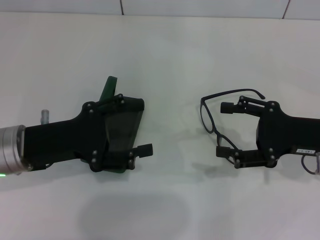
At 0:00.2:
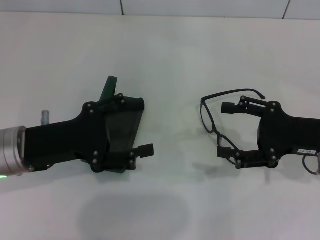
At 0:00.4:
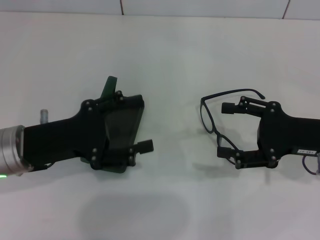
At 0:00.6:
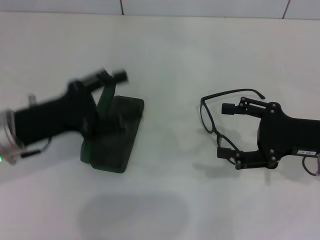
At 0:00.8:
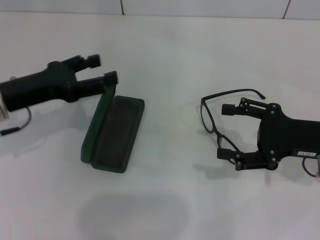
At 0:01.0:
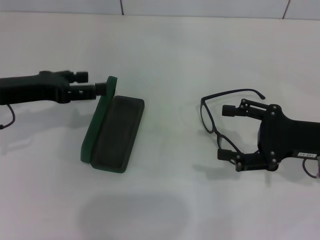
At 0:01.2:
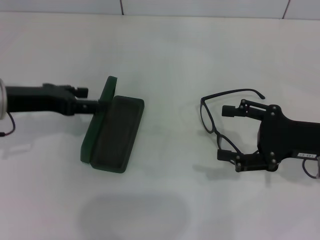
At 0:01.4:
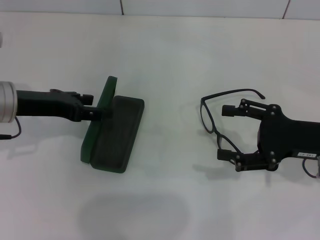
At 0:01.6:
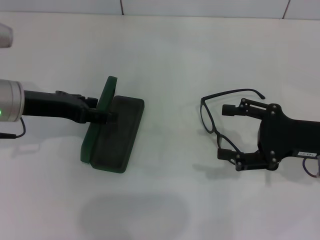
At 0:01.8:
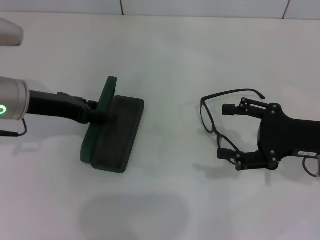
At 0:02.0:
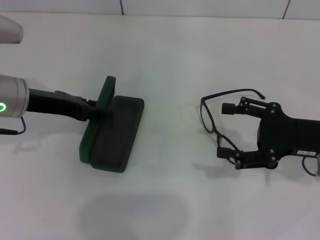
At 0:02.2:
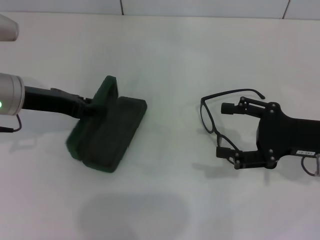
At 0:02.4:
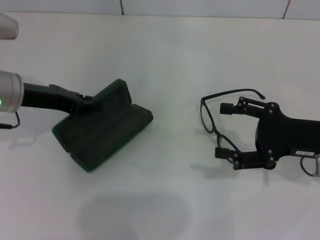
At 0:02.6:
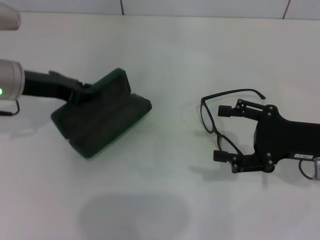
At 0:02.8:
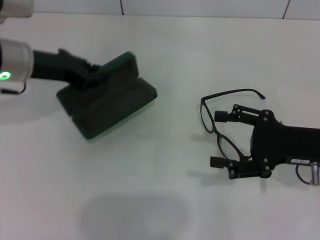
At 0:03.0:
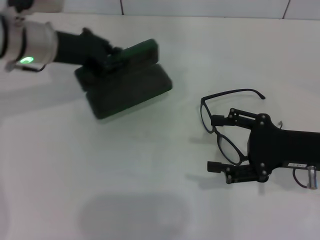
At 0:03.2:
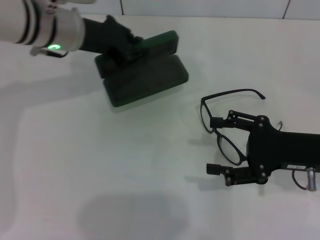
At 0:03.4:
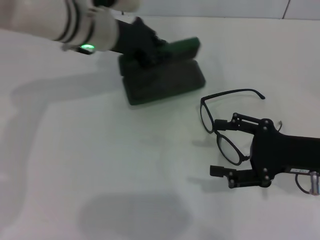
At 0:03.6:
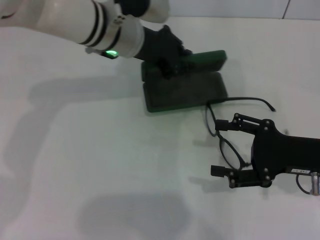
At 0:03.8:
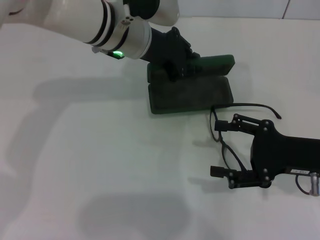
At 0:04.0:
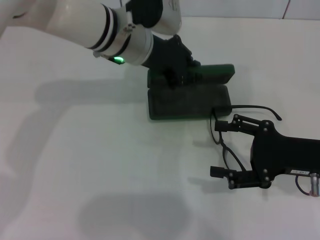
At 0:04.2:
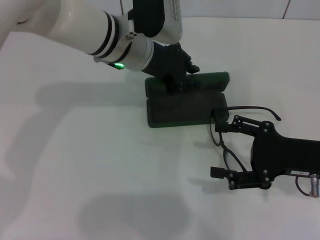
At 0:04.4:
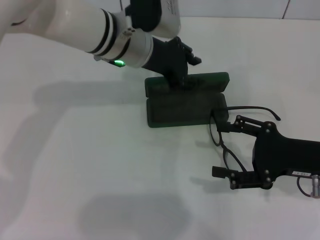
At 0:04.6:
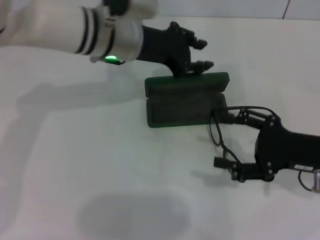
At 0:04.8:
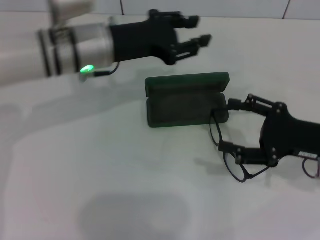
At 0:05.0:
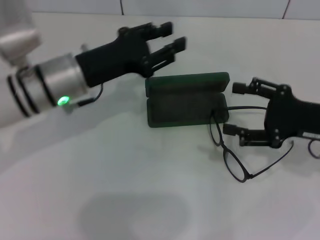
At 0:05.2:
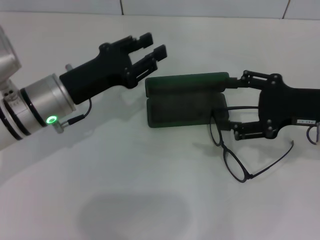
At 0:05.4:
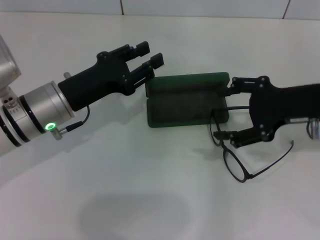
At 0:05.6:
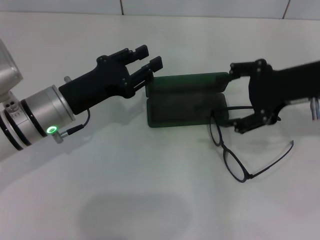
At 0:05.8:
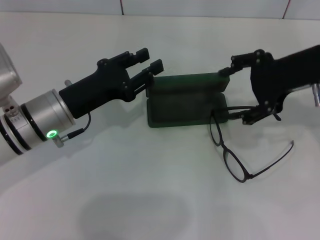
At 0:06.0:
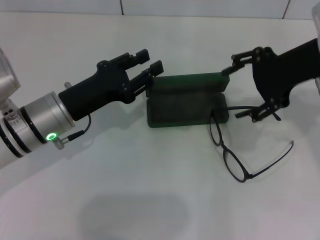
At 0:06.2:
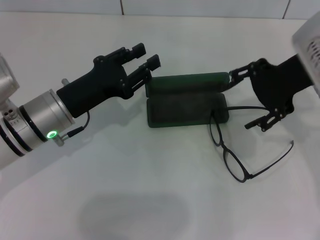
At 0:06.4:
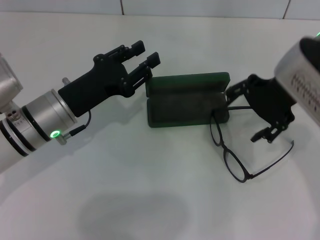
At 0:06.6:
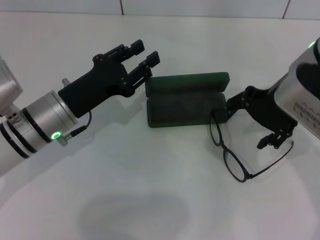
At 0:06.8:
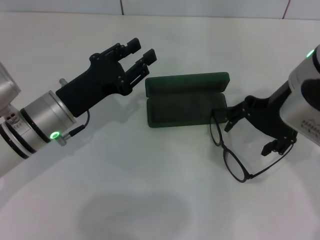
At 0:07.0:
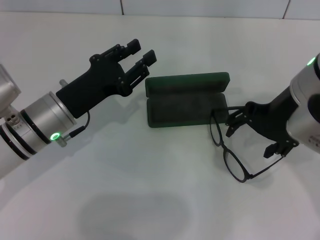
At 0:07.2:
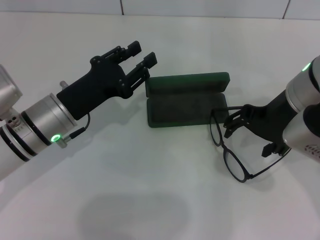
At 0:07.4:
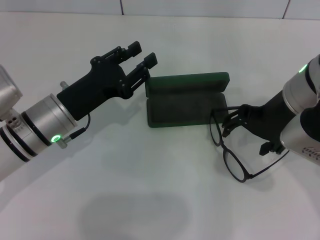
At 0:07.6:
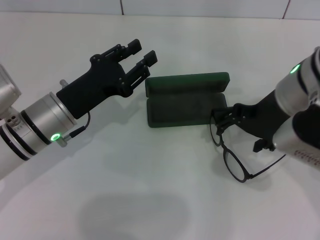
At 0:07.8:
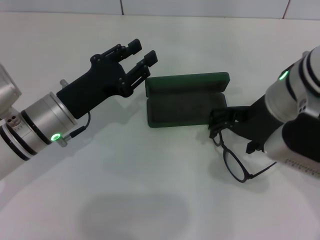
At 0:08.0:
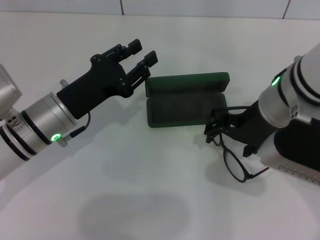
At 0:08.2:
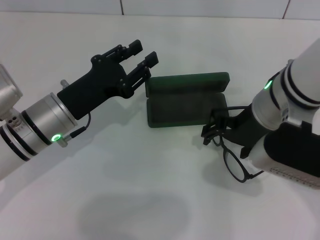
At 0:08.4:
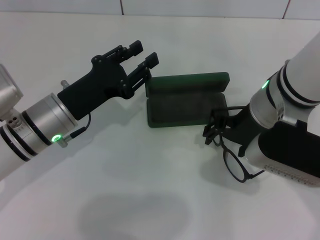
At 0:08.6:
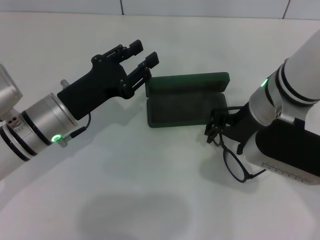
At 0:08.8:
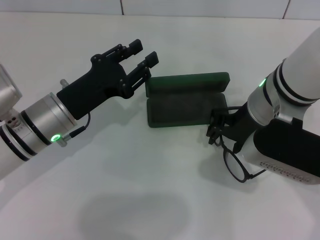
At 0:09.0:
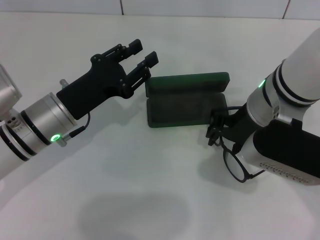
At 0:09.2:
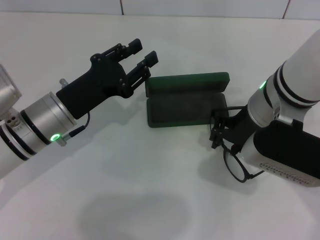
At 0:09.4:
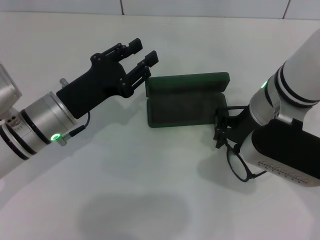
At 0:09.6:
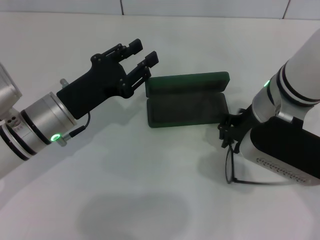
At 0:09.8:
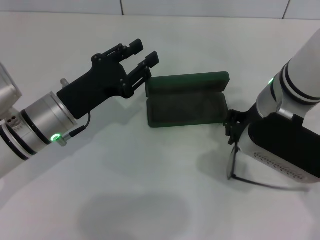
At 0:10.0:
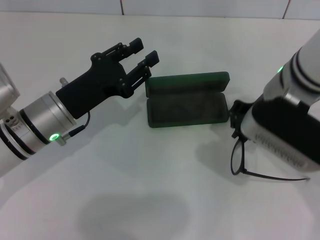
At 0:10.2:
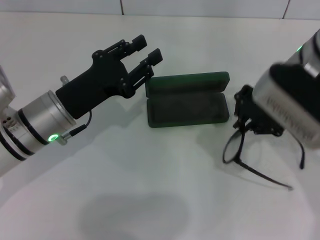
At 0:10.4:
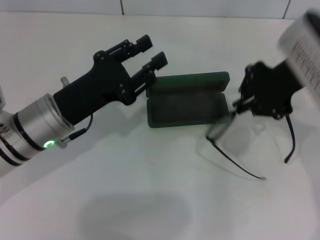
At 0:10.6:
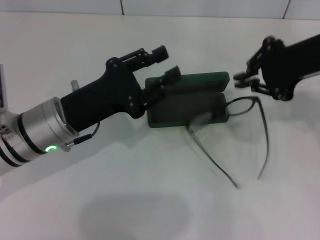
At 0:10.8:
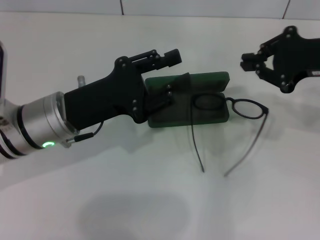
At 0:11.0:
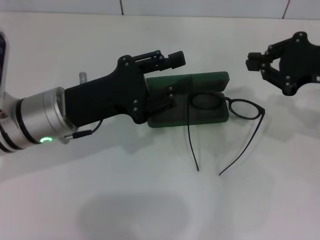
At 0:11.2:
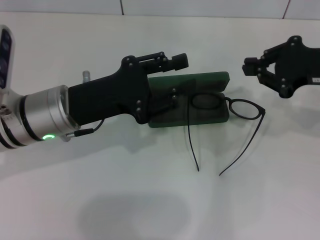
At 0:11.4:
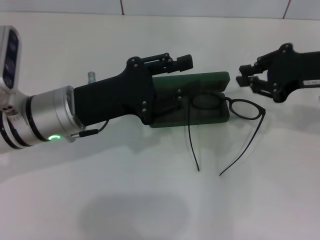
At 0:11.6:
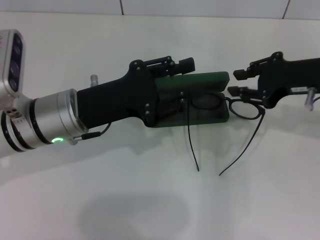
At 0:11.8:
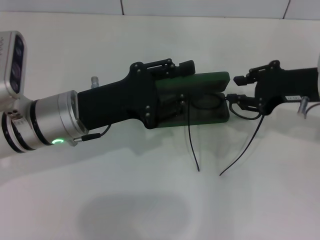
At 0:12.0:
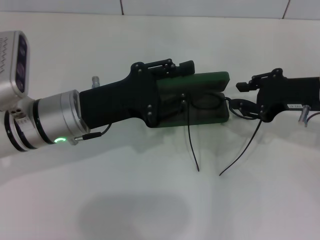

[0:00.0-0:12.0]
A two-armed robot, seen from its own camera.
Step, 0:00.0 to 0:02.2: Grab the glasses case with your left hand.
Step, 0:02.4 to 0:04.2: Place the glasses case in the center of the table with your left hand.
0:00.0 to 0:01.6: The left gripper goes approximately 5 cm forward.
0:01.6 to 0:03.0: The left gripper goes some 5 cm forward, and closes its fingers.
0:03.0 to 0:04.4: The left gripper goes about 10 cm to the right.
0:04.4 to 0:06.0: The right gripper moves upward and forward, about 15 cm; the left gripper moves to the left, backward and downward, roughly 20 cm.
0:06.0 to 0:07.6: The right gripper moves to the left, approximately 5 cm.
0:07.6 to 0:09.0: The right gripper closes its fingers.
0:09.0 to 0:10.4: The right gripper heads to the right and upward, covering about 10 cm, and closes up.
0:10.4 to 0:12.0: The right gripper travels downward and to the right by approximately 10 cm, and opens up.

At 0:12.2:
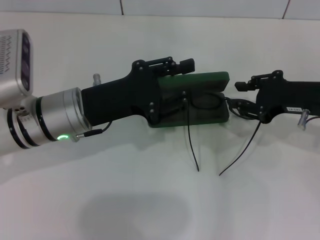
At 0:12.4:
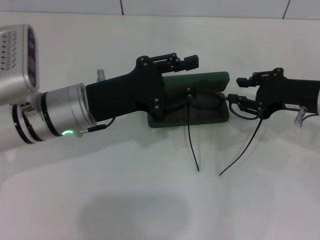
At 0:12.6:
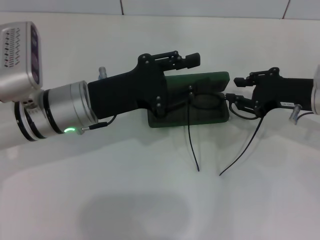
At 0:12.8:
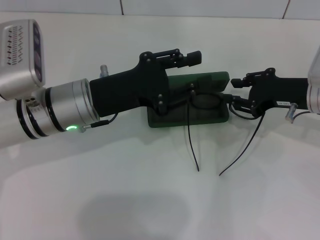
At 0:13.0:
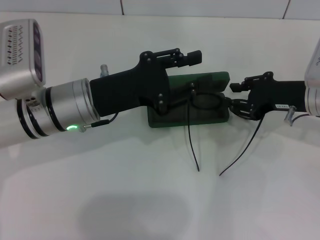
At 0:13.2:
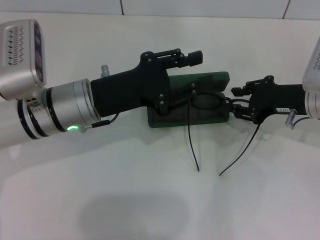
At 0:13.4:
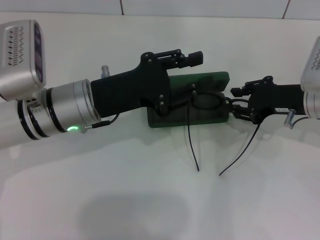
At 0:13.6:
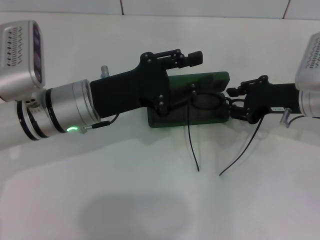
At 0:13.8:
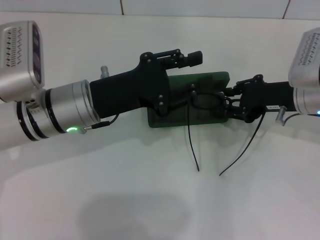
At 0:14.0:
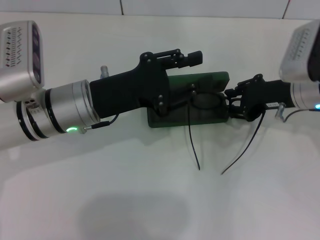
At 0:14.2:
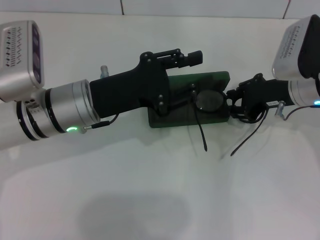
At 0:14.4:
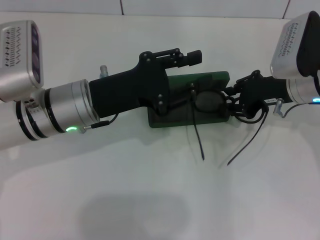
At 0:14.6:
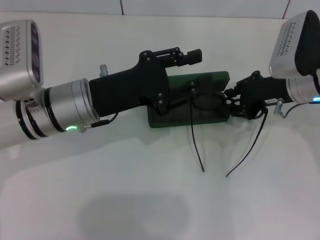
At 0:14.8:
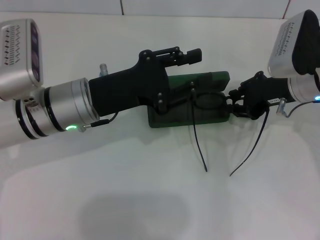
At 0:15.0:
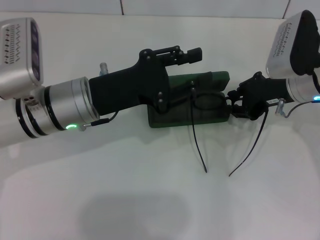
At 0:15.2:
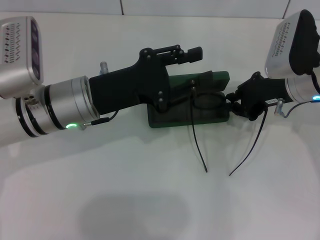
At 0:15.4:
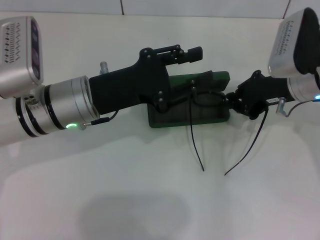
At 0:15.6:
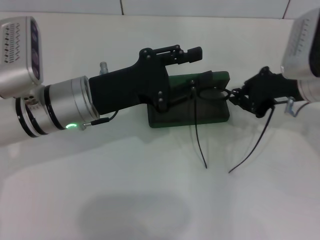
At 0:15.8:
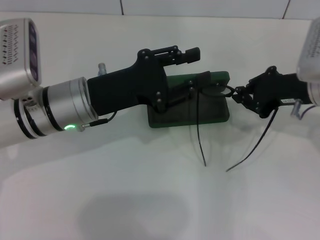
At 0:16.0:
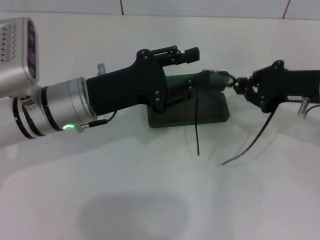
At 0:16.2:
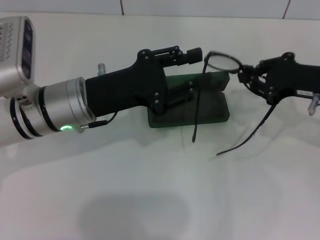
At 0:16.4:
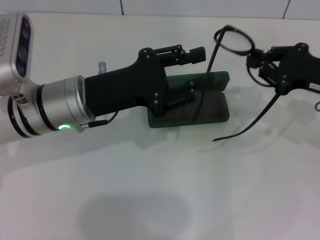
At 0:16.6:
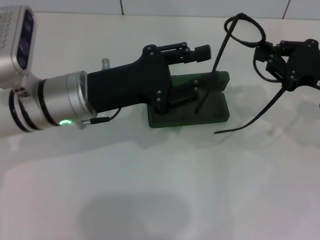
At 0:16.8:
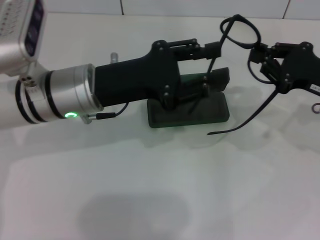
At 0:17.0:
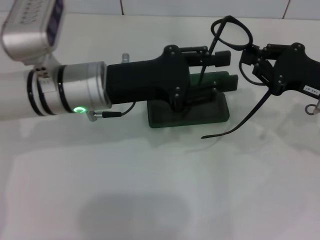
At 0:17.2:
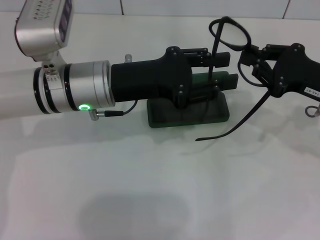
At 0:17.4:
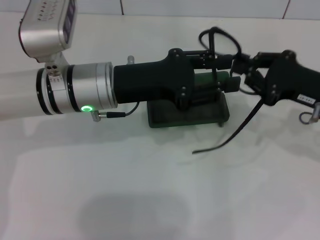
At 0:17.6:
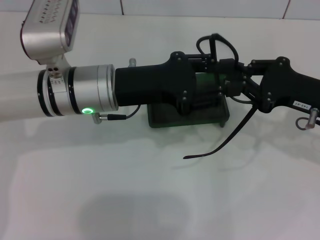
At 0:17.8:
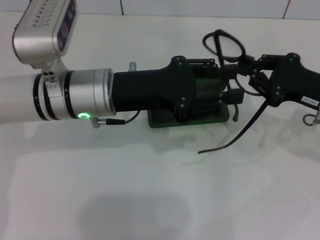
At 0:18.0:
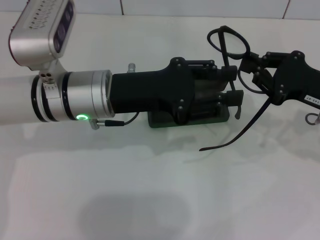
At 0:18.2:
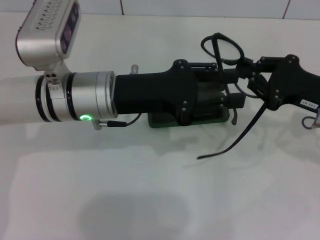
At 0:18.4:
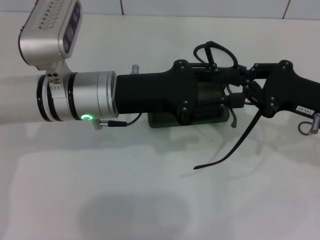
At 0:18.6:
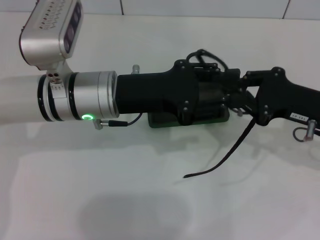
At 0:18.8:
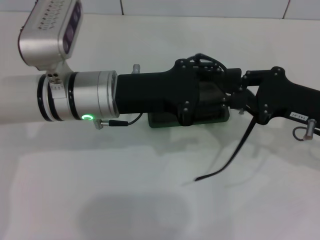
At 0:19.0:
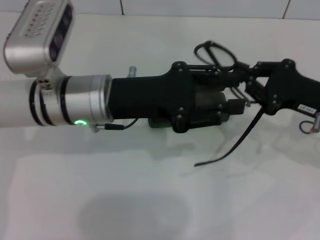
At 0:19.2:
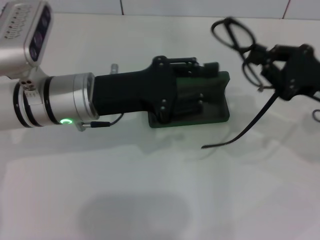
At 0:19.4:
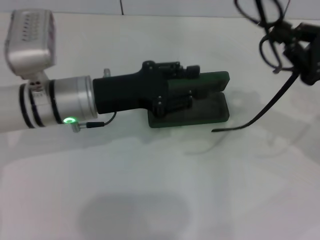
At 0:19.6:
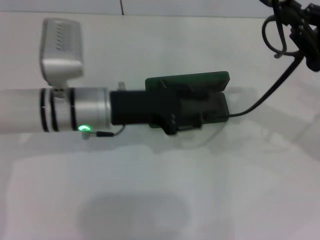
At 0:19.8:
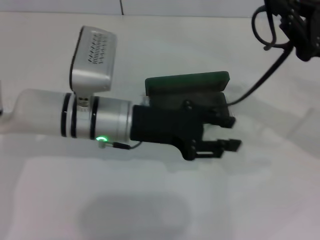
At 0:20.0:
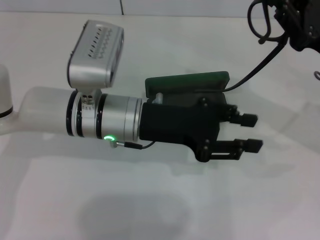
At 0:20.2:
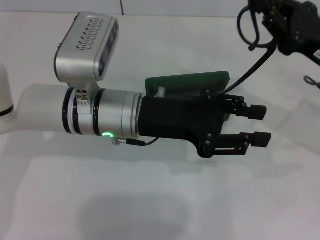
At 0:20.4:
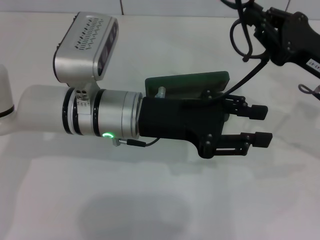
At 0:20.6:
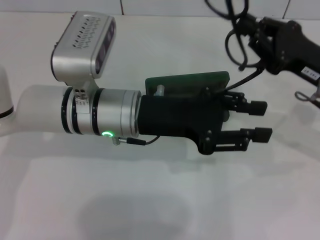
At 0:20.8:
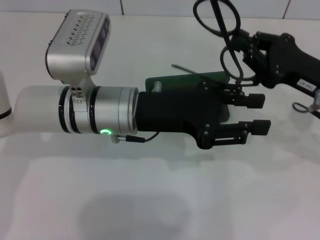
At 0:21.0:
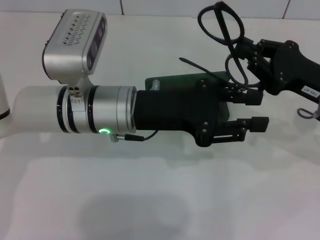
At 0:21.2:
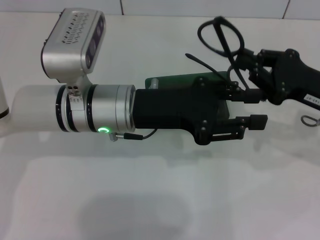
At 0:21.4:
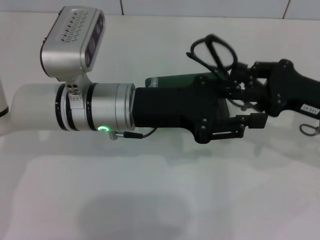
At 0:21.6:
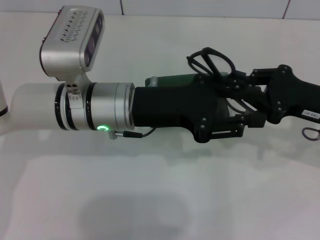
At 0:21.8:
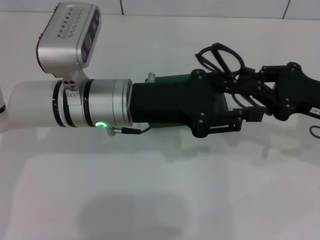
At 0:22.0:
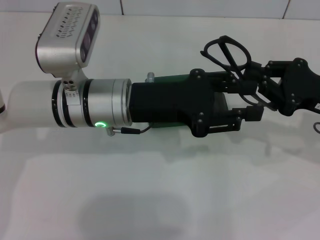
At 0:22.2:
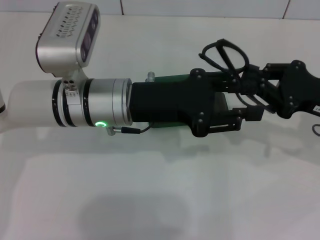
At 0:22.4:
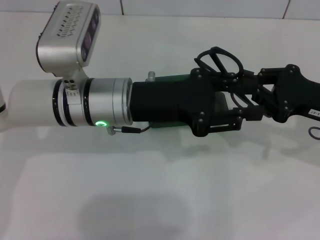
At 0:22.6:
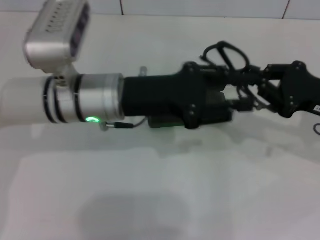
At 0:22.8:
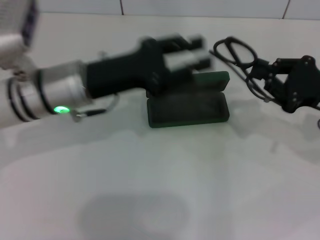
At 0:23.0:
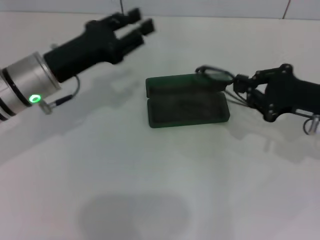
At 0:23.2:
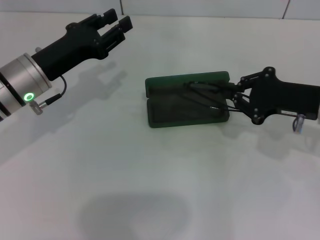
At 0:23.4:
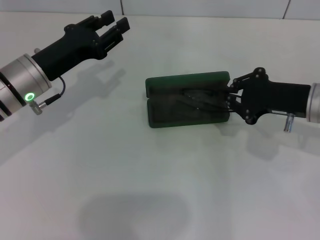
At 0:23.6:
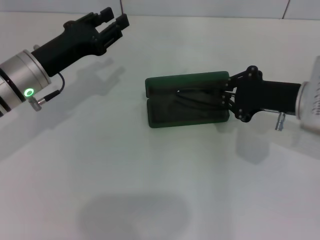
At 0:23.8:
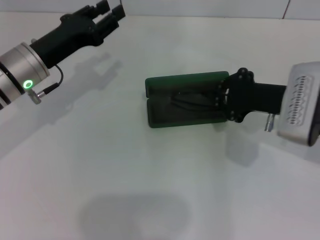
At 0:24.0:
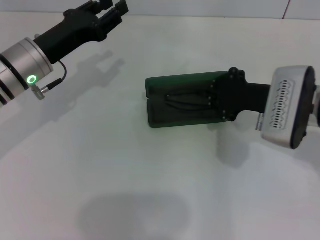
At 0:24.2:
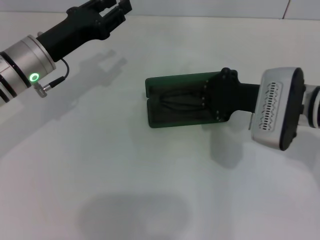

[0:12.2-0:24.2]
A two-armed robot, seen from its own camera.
Step, 0:12.2 to 0:15.2: Grab the eyeglass frame with your right hand.
Step, 0:15.4 to 0:21.4: Fold the frame with your left hand.
0:12.2 to 0:13.8: The grippers stay close to where they were, moving slightly.
0:13.8 to 0:15.2: There are only small adjustments of the grippers.
0:15.2 to 0:16.6: The right gripper goes approximately 10 cm to the right and backward.
0:22.6 to 0:24.2: The grippers both shift to the left by some 10 cm.
